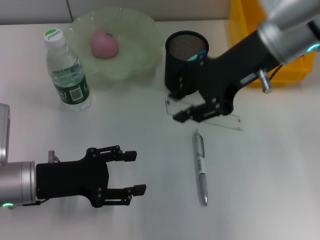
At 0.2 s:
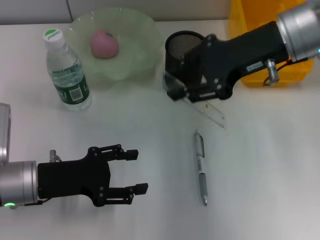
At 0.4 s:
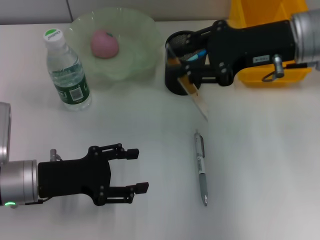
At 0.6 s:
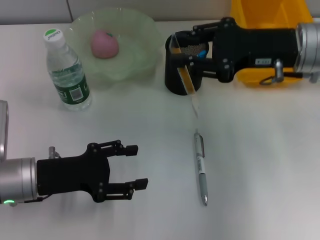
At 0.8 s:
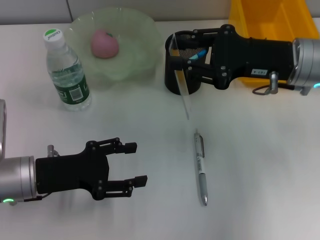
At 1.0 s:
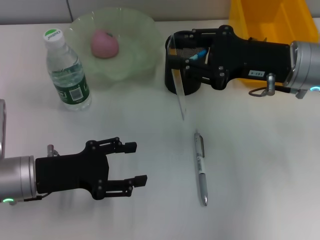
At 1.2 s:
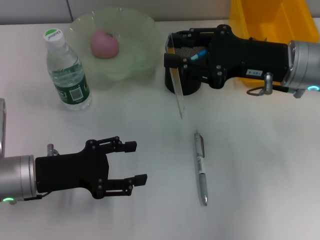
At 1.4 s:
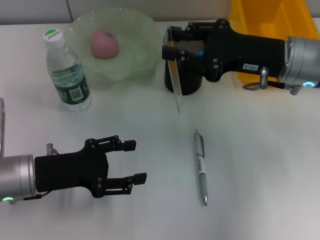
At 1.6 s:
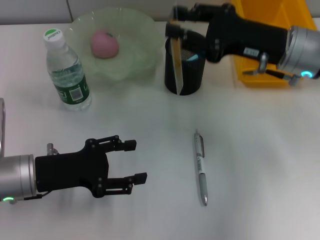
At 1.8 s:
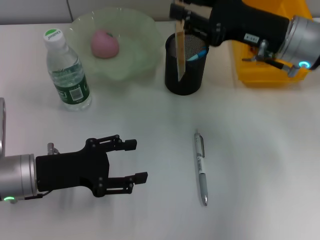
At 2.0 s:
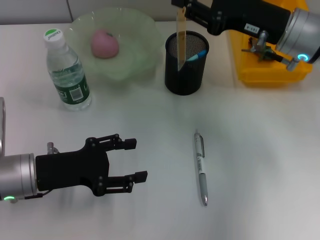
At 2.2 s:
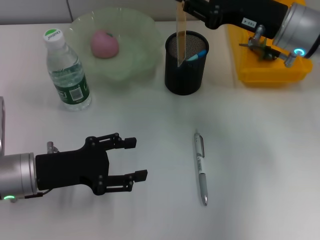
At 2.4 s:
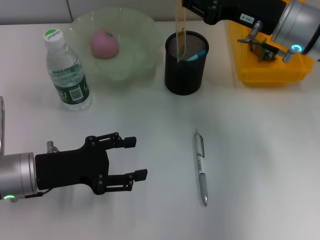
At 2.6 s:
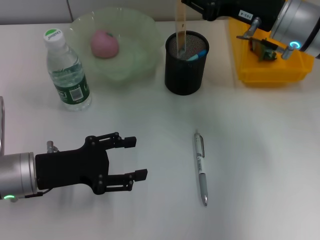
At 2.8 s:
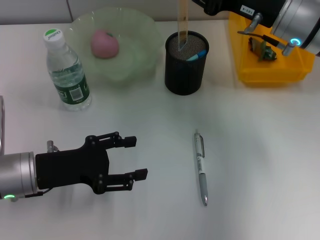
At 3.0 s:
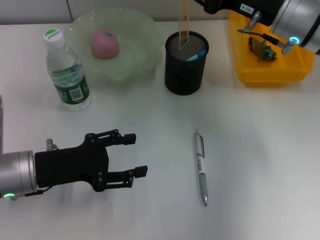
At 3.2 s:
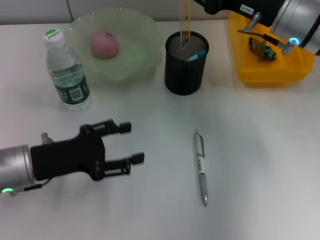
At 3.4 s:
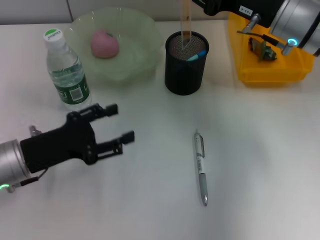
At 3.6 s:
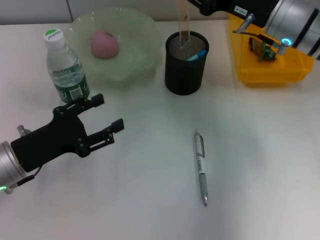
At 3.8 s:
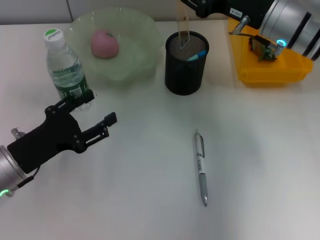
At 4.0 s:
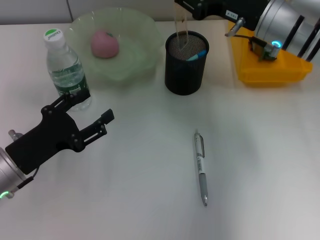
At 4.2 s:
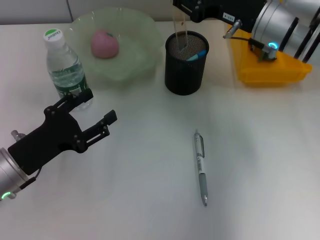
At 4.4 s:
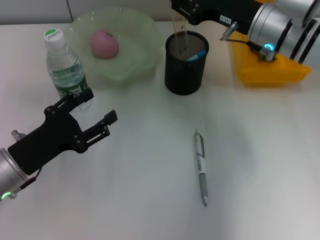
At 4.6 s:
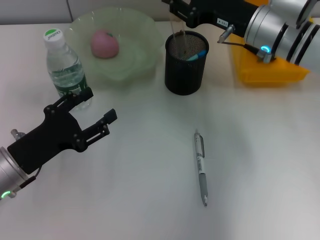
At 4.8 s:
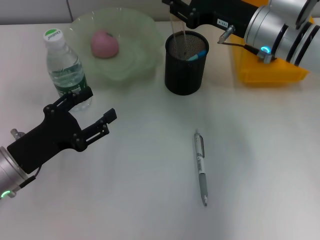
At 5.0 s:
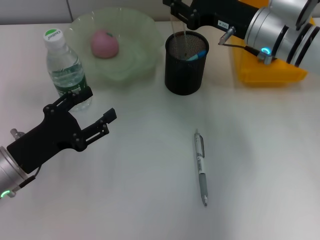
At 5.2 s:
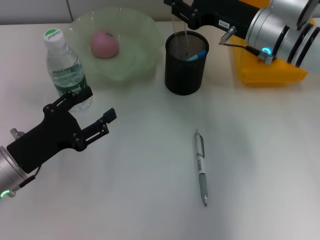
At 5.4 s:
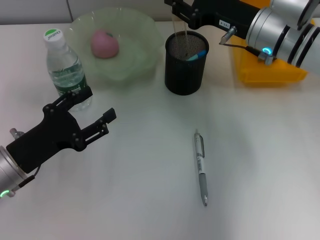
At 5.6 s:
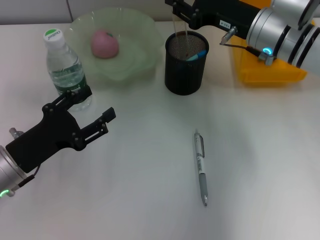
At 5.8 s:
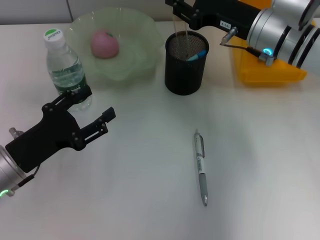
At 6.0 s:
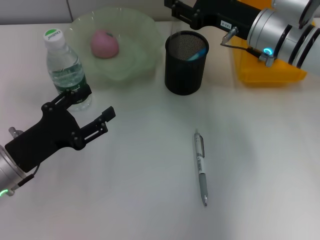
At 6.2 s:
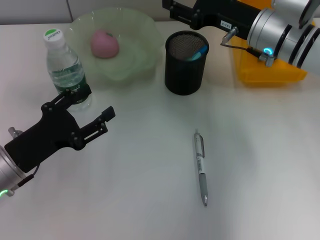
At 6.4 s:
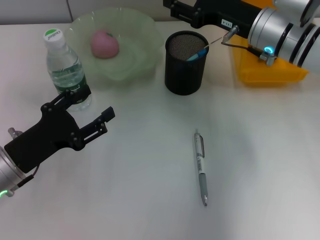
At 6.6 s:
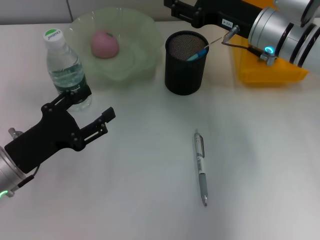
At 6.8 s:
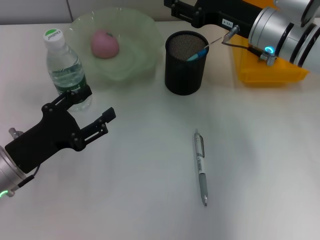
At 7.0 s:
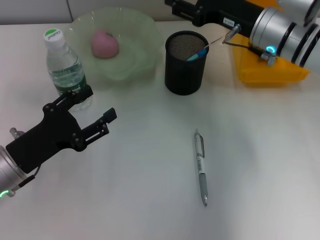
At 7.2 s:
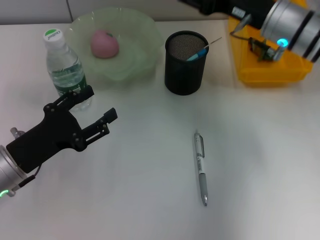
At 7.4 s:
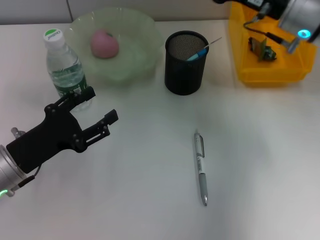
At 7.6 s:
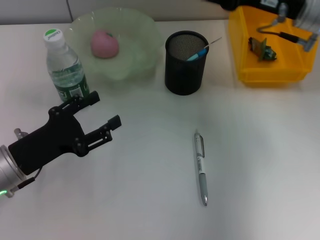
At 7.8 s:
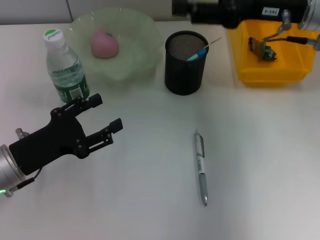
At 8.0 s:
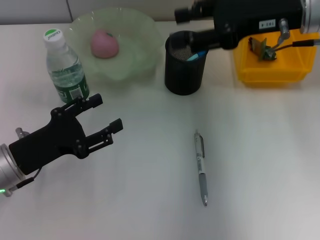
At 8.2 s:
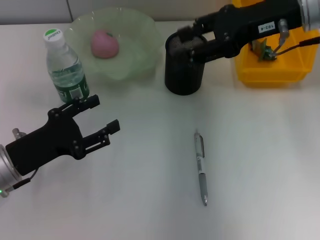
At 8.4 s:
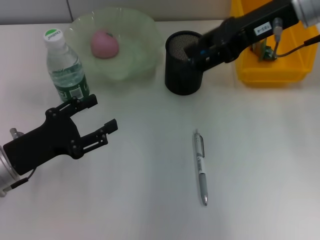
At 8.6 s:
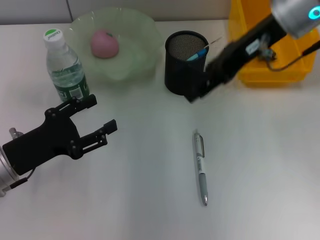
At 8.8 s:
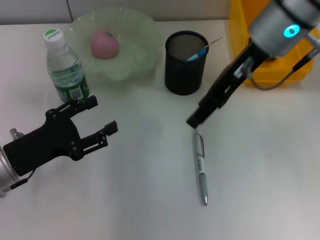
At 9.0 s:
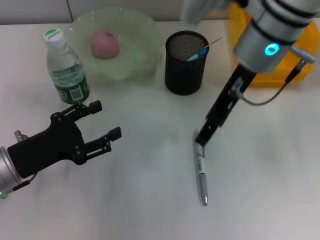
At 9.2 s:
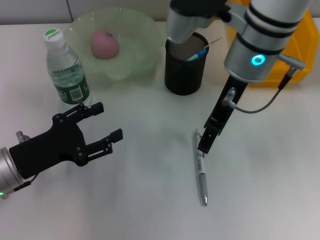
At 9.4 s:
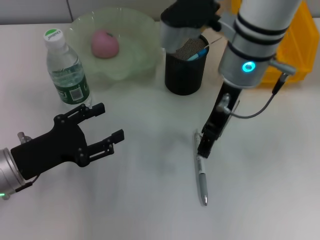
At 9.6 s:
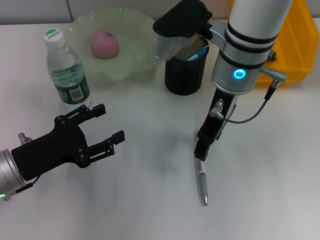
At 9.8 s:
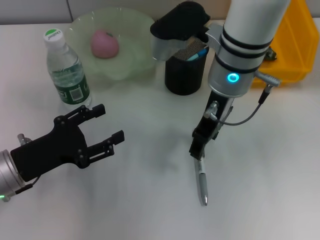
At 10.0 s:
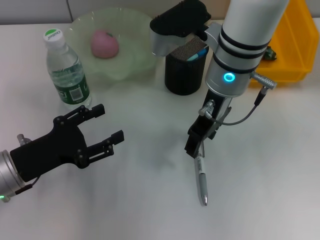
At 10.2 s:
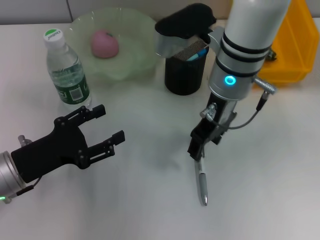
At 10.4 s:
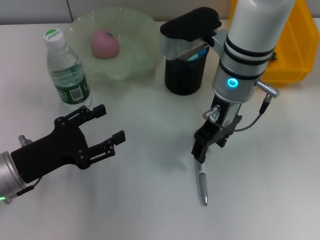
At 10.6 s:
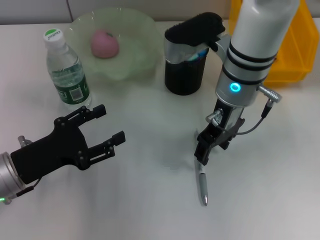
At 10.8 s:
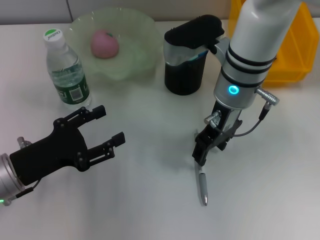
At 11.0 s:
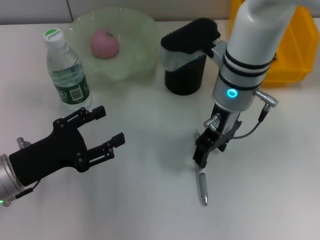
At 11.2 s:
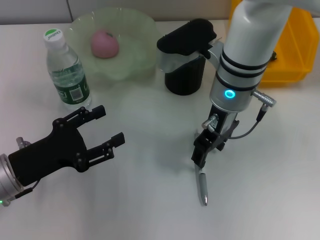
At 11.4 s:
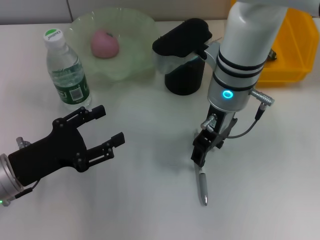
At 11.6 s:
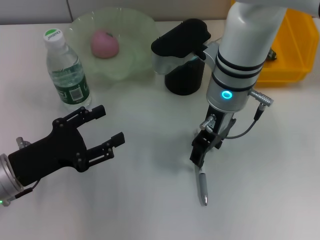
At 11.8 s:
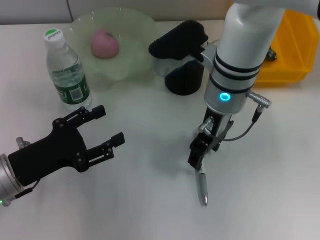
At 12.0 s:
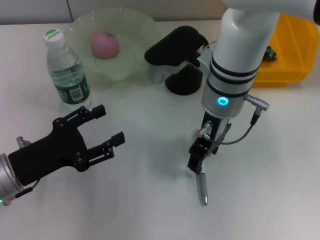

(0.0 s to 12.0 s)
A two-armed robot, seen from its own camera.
Step, 0.0 s - 6.8 s: Place the ruler into the pen holder with the right hand.
0.0 s - 1.6 s: The right gripper goes some 10 cm downward.
1.6 s - 3.0 s: The grippers make only small movements.
4.4 s - 6.0 s: Neither gripper changes place.
6.0 s - 7.6 s: The right gripper moves upward, about 5 cm.
7.6 s - 9.0 s: The right gripper goes some 10 cm to the left.
9.0 s - 10.4 s: The right gripper shifts some 5 cm downward.
10.4 s - 12.0 s: There are only small adjustments of the grippers.

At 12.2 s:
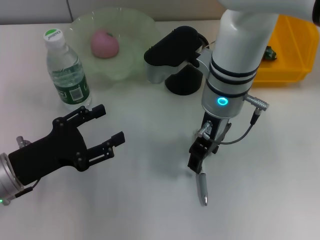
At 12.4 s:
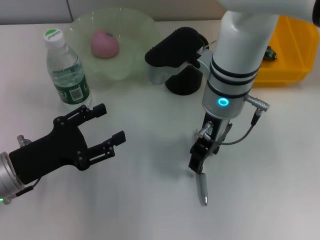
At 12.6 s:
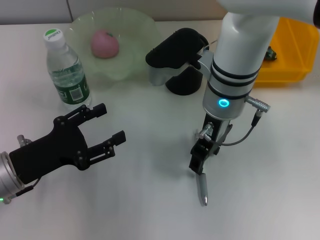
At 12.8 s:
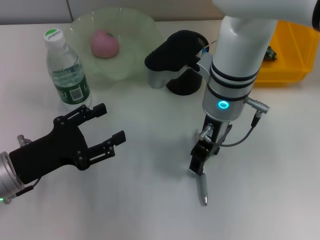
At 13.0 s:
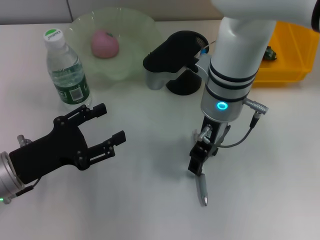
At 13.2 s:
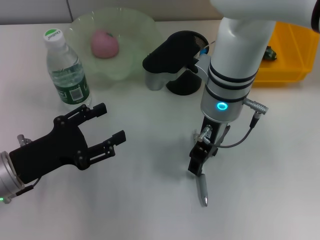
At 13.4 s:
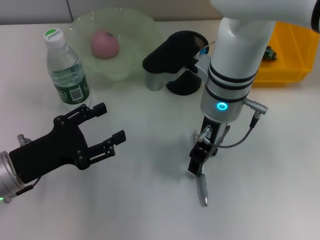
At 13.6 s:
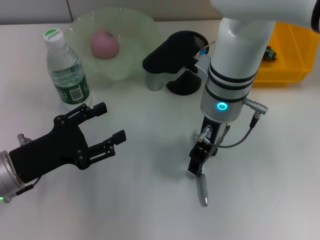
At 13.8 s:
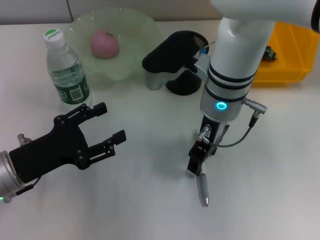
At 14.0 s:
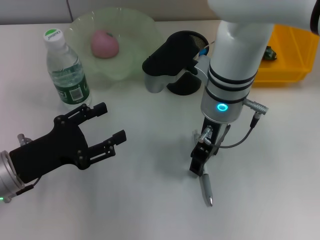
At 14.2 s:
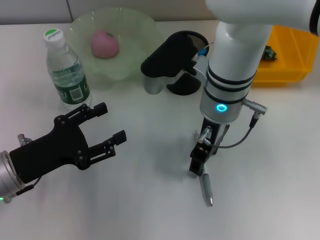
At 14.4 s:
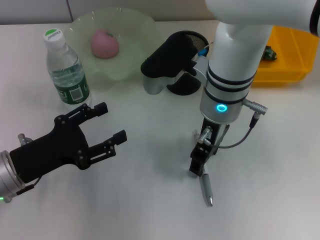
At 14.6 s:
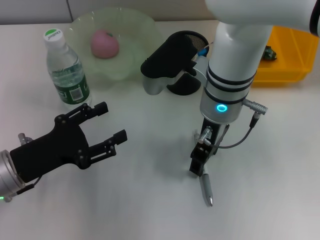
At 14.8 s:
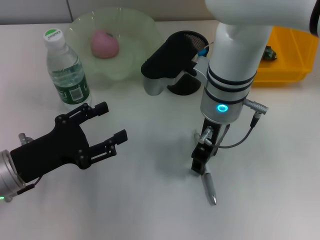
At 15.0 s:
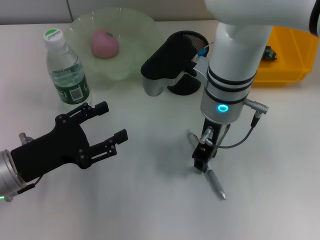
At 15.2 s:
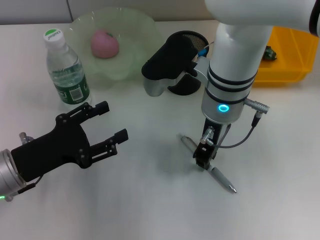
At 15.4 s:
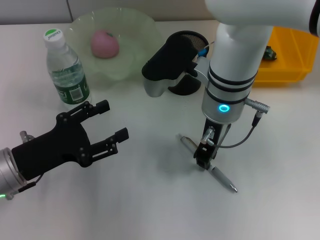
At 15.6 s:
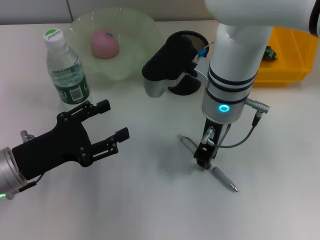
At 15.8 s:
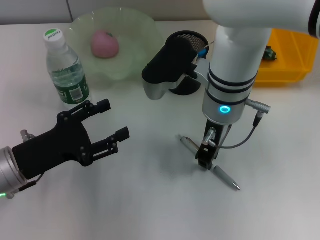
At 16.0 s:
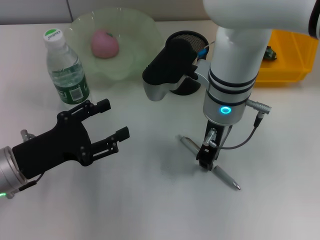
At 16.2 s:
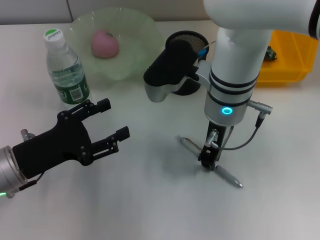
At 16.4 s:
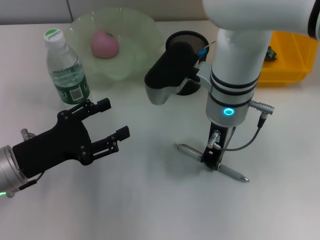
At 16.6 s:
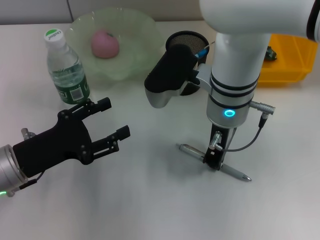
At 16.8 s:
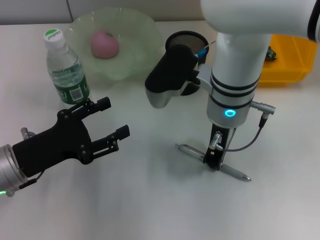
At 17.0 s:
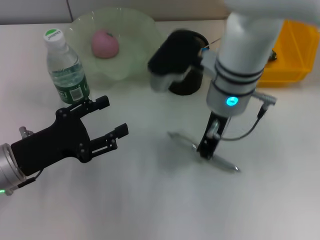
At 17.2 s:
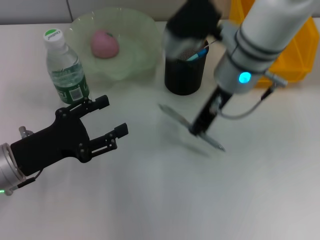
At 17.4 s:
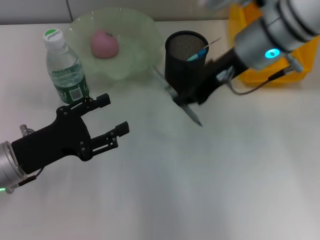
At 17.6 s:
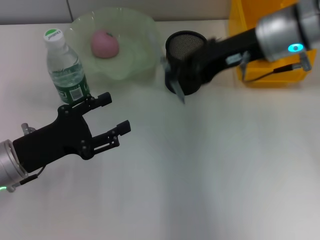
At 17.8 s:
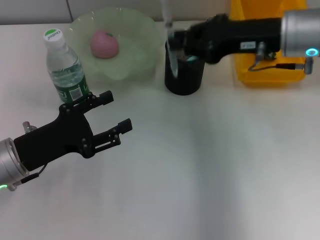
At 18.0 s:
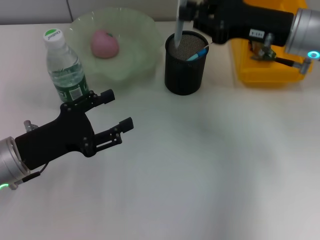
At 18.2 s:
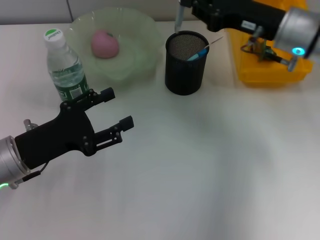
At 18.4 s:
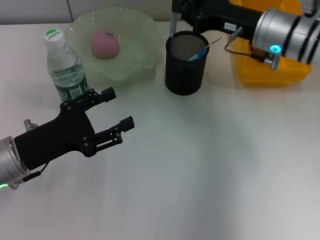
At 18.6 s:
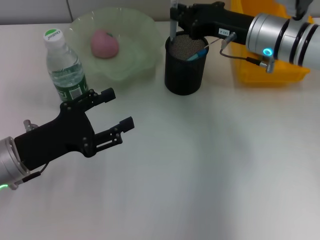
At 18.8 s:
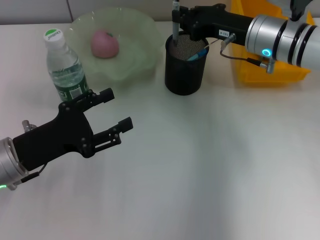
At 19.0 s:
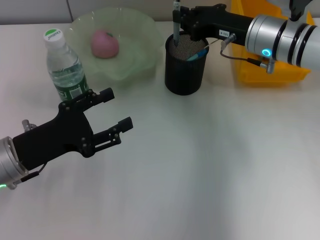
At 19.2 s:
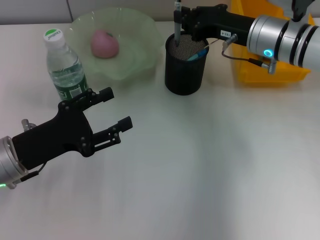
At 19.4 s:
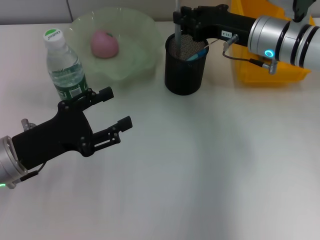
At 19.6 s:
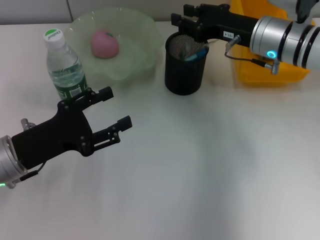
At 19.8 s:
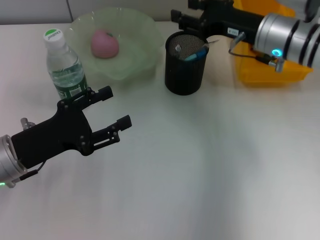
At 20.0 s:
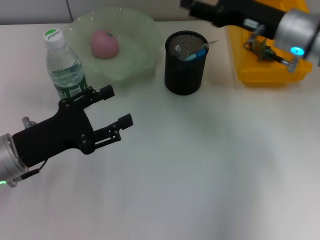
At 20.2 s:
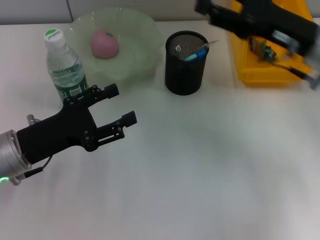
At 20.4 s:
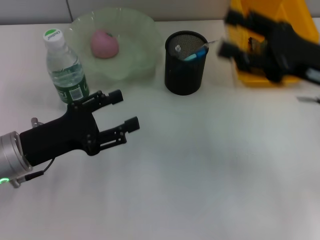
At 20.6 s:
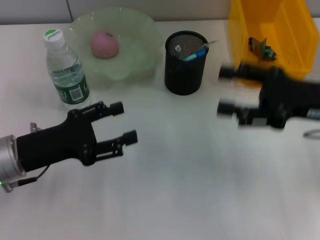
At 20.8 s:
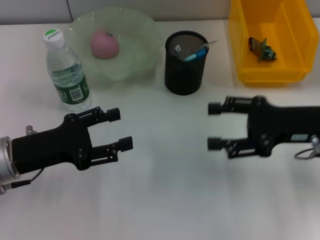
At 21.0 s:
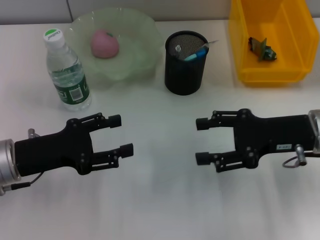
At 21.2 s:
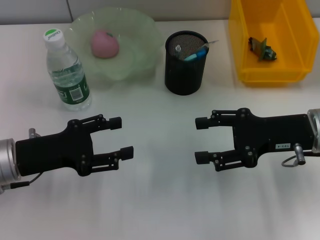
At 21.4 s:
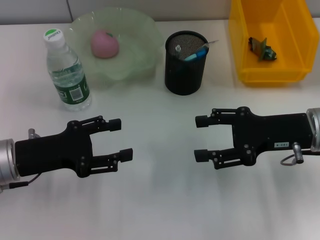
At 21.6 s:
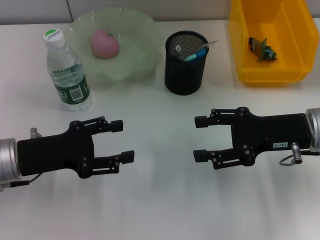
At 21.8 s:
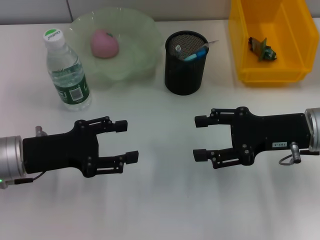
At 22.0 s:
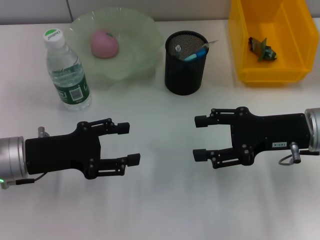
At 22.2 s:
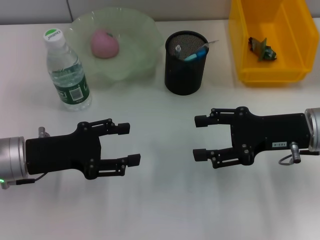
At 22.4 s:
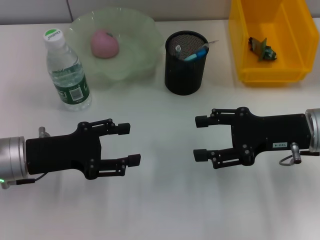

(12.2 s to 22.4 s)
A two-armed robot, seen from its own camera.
Step, 12.2 s - 16.2 s: Grab the gray spring-action pen with the right hand.
Step, 16.6 s - 19.8 s: Place the gray spring-action pen into the pen holder with the right hand.
12.2 s - 13.6 s: Both grippers stay about where they are.
13.6 s - 15.2 s: Both grippers stay about where they are.
15.2 s - 16.6 s: The grippers move only a little.
16.6 s - 18.0 s: The right gripper goes roughly 15 cm to the right.
18.0 s - 19.4 s: The right gripper shifts by roughly 5 cm.
19.4 s - 21.0 s: The right gripper goes about 15 cm backward and to the right, and opens.
21.0 s - 22.4 s: The grippers stay close to where they were, moving slightly.
